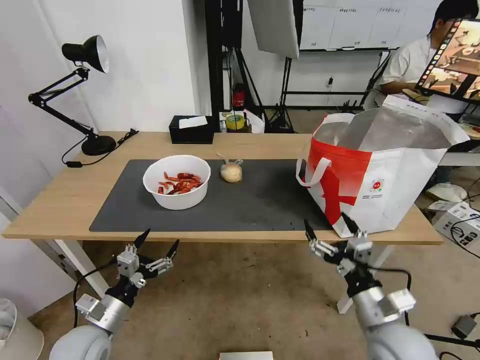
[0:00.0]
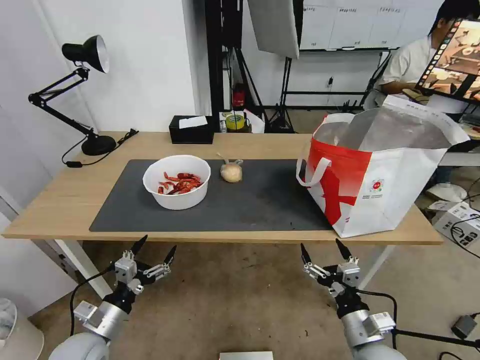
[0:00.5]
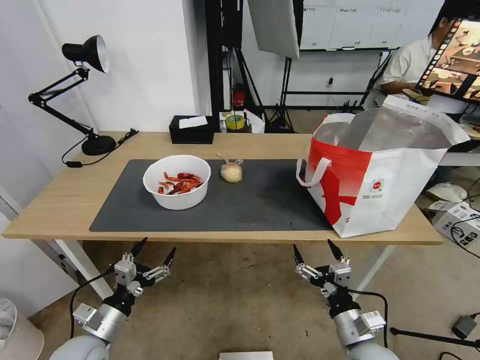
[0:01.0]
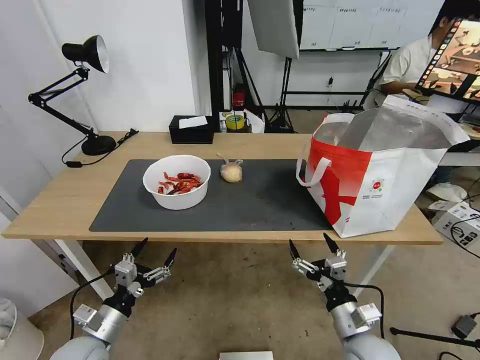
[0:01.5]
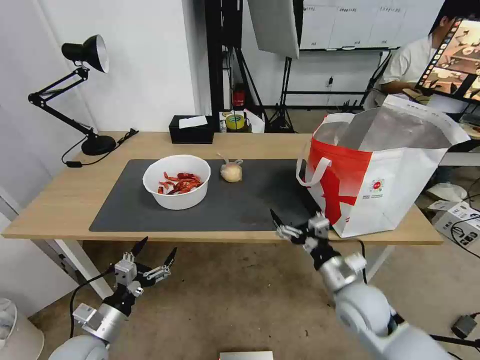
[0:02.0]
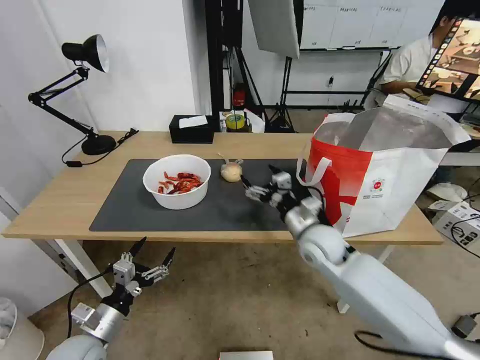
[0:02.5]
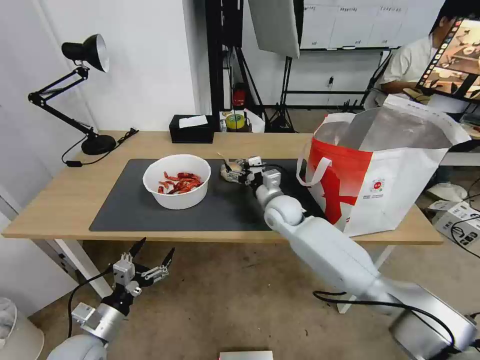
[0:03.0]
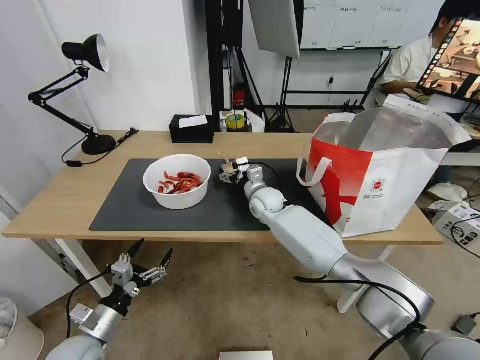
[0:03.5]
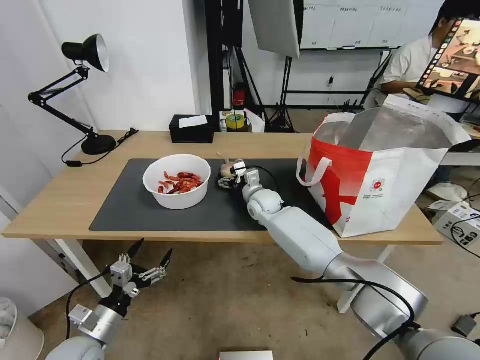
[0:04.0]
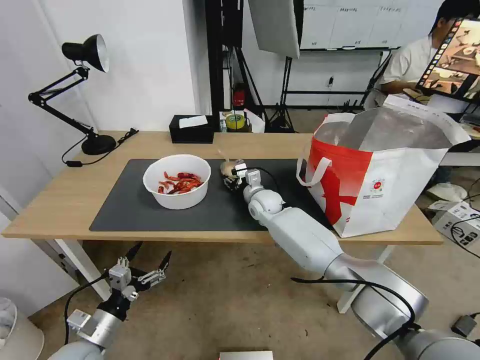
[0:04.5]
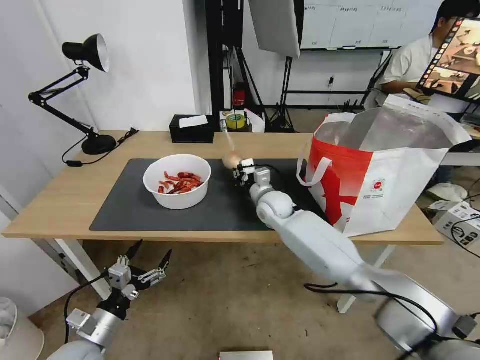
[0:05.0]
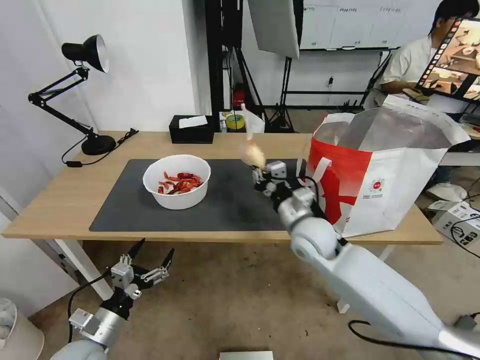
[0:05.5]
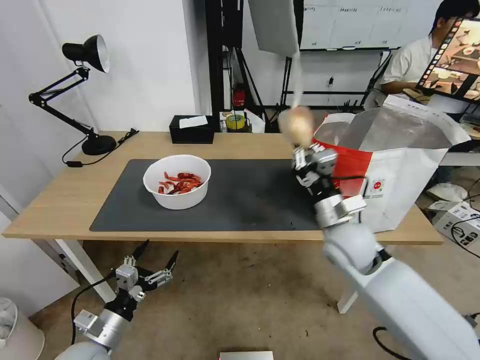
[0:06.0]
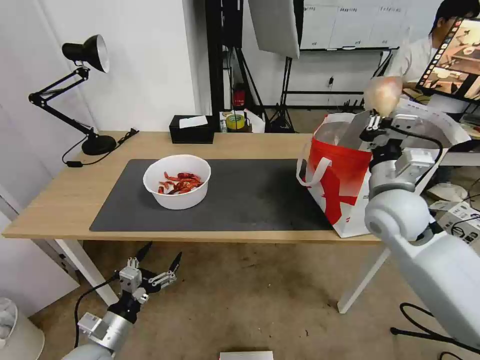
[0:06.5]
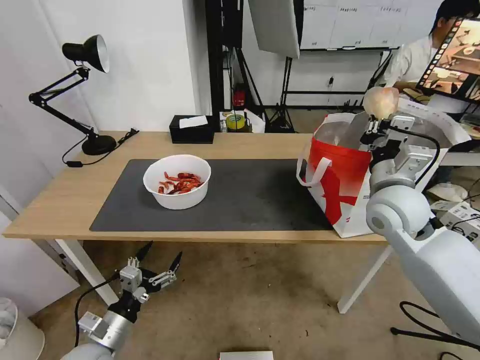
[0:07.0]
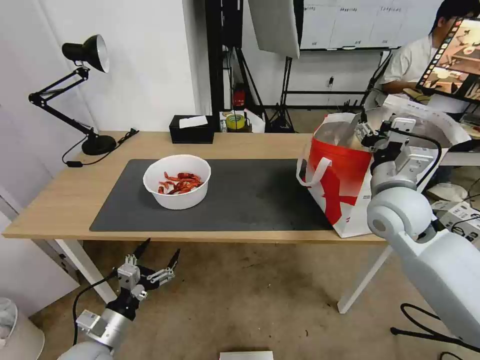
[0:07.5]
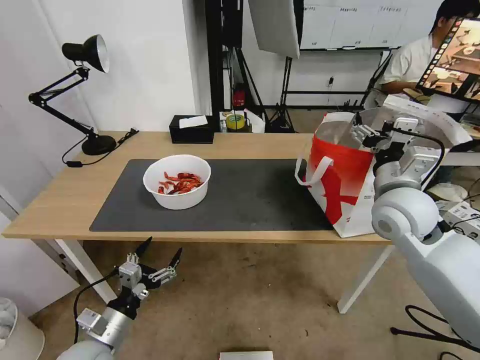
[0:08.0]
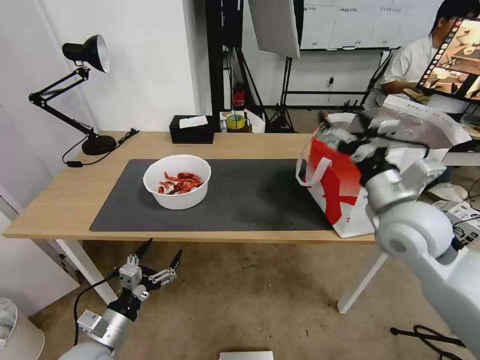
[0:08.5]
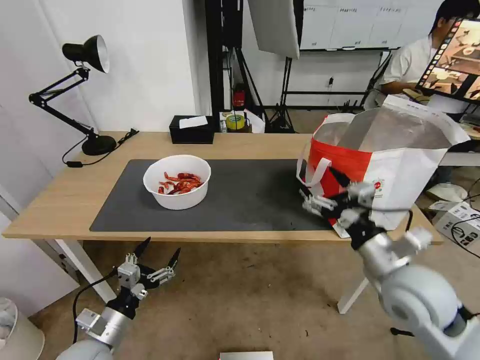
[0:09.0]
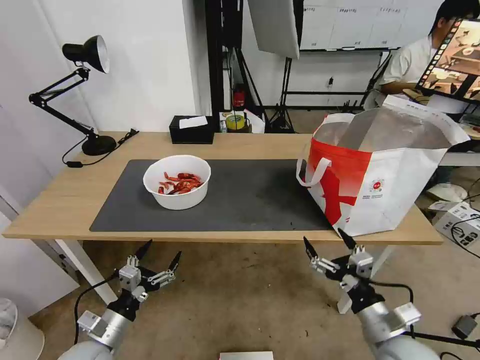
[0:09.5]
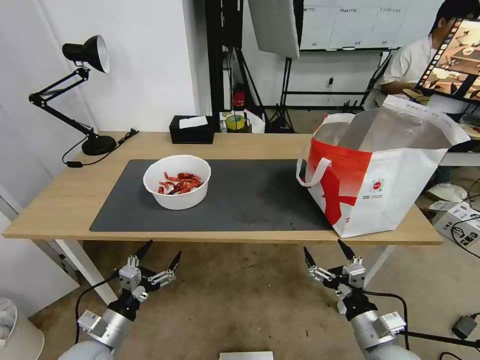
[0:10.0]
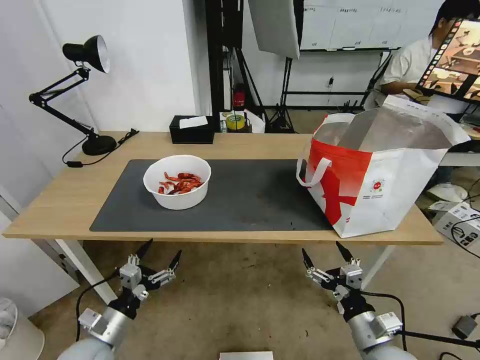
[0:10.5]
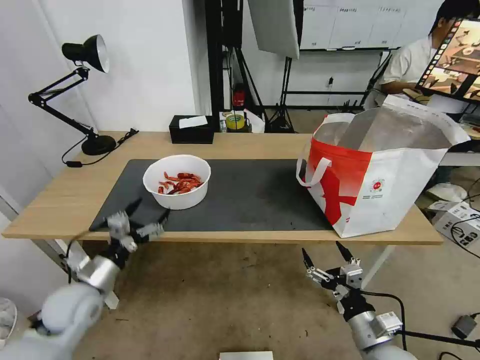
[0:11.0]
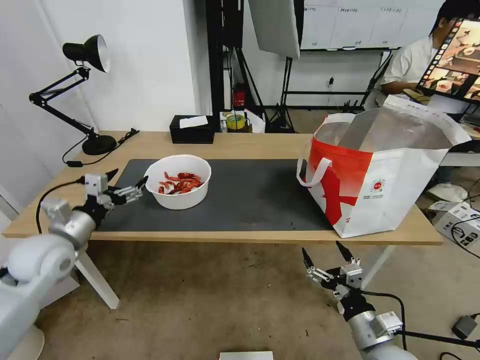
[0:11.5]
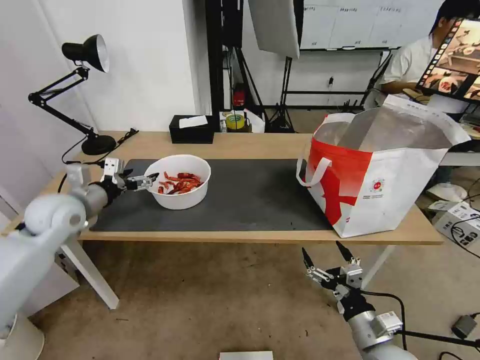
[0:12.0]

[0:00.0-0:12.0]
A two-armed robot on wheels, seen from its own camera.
Task of the whole recording: Pick up the trash from the table and place it into the takeout bag.
0:00.0 to 0:02.0: The right gripper moves forward, about 5 cm.
0:02.0 to 0:04.0: The right gripper goes about 35 cm forward and to the left.
0:04.0 to 0:06.0: The right gripper goes about 25 cm backward, to the right and upward, and closes.
0:06.0 to 0:08.0: The right gripper is displaced upward and to the right by some 10 cm, and opens.
0:08.0 to 0:10.0: The right gripper travels downward and backward by approximately 30 cm.
0:10.0 to 0:12.0: The left gripper moves forward and upward, roughly 30 cm.

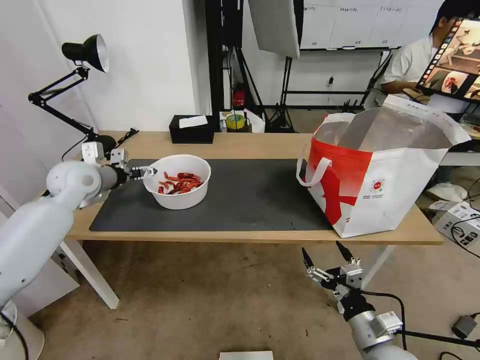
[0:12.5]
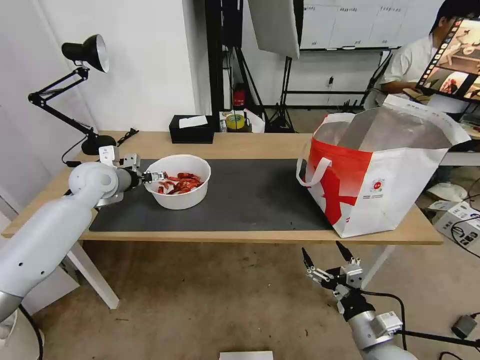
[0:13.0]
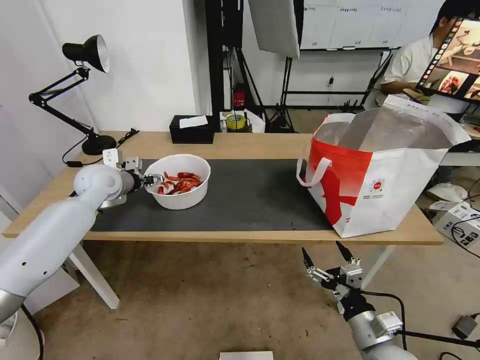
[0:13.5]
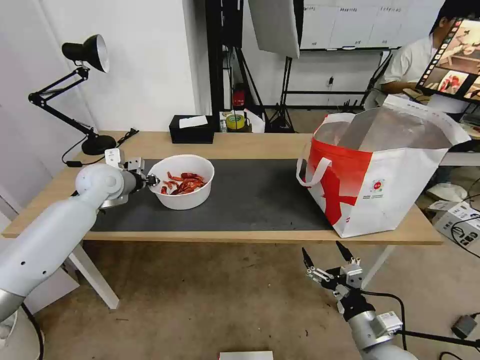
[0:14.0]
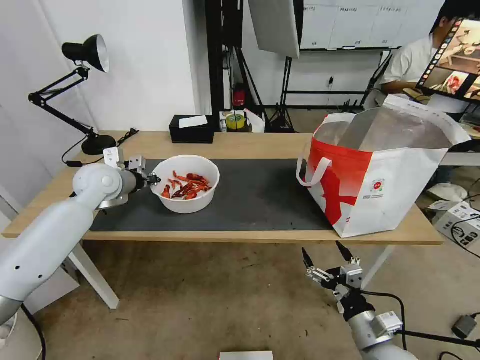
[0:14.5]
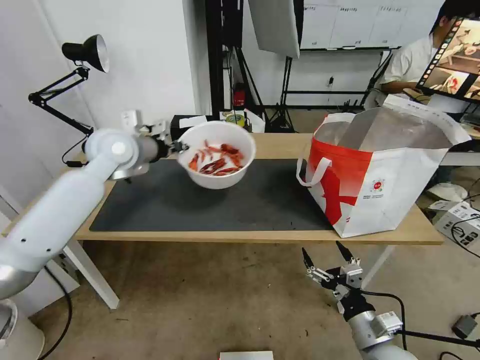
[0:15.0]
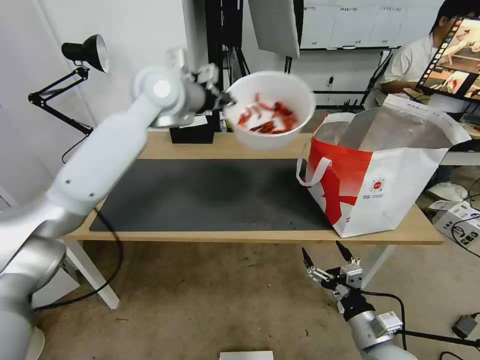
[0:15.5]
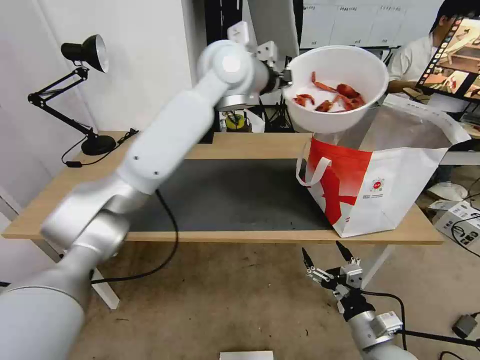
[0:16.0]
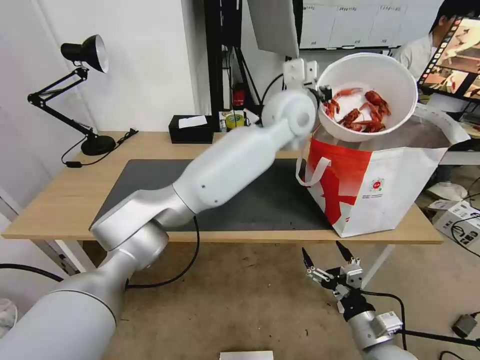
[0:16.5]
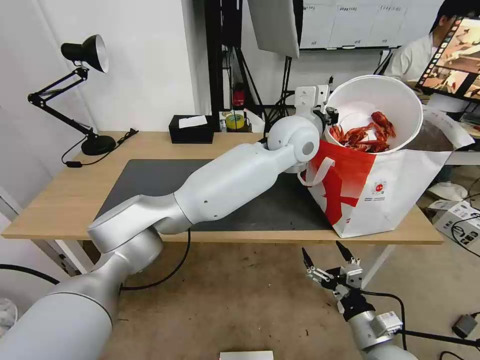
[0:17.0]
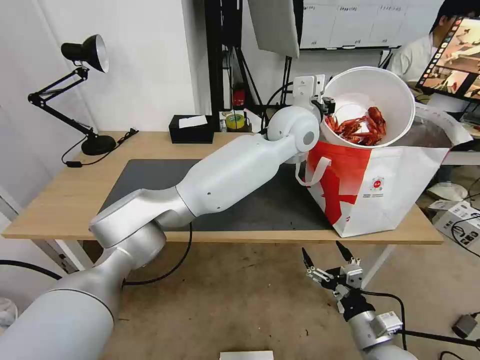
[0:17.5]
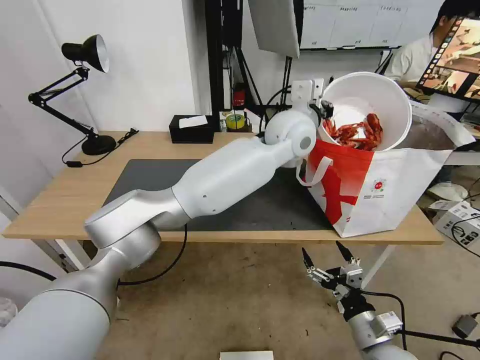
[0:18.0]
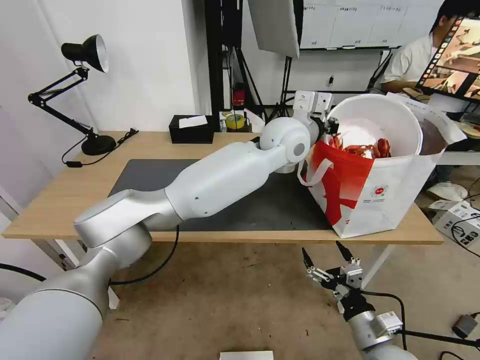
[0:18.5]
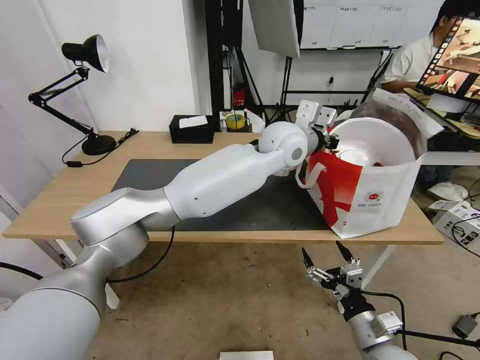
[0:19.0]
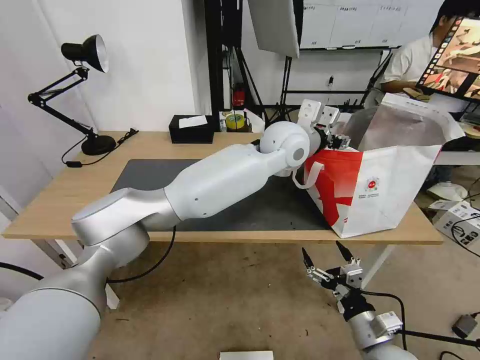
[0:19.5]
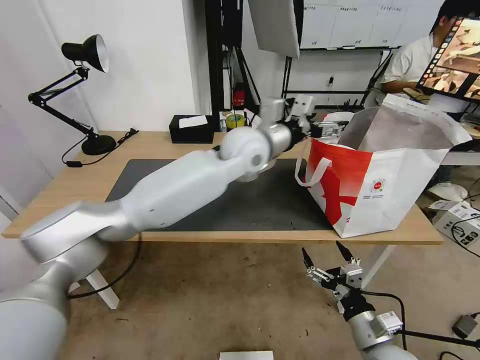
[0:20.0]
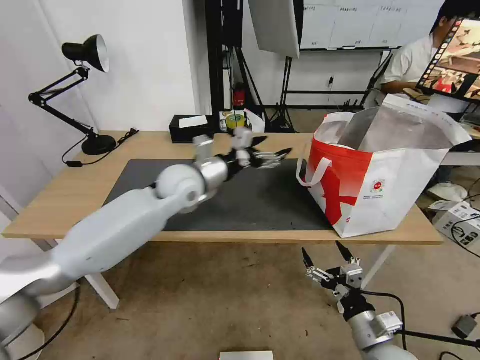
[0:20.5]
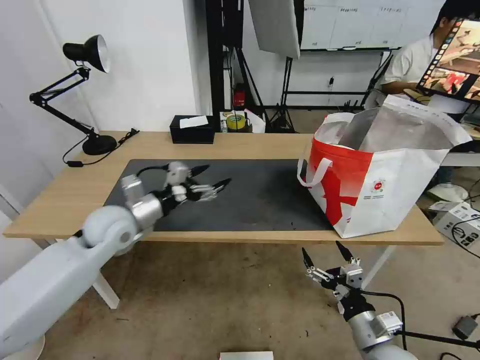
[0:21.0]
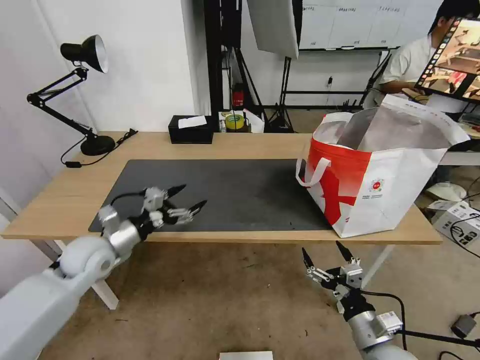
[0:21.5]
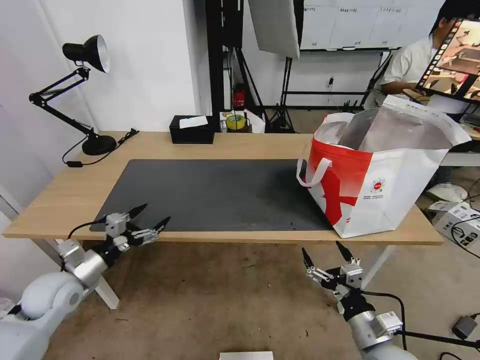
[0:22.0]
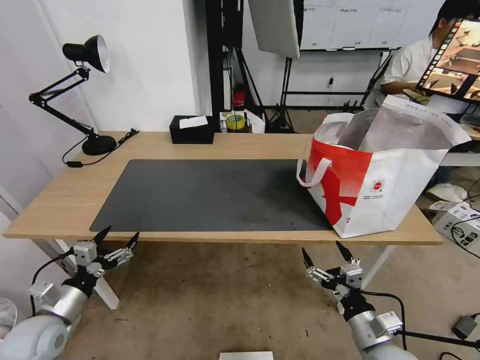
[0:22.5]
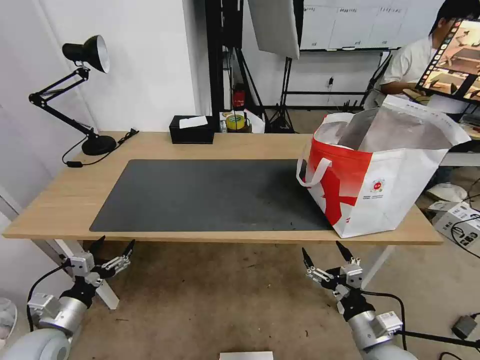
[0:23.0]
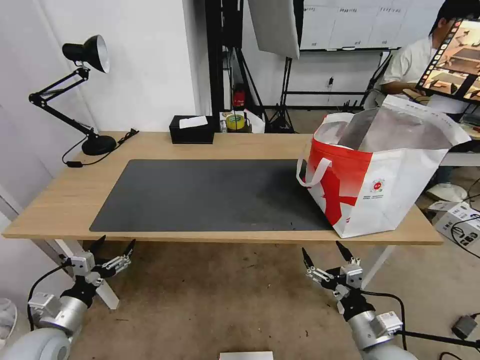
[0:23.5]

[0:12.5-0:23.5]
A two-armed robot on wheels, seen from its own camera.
Task of the whole recording: Pick up the trash from the table and place it into the takeout bag.
0:12.5 to 0:14.5: The left gripper closes its fingers.
0:14.5 to 0:16.0: The left gripper heads to the right and upward, covering roughly 35 cm.
0:16.0 to 0:18.0: The left gripper goes roughly 15 cm to the right and downward.
0:18.0 to 0:20.0: The left gripper moves to the left, about 10 cm, and opens.
0:20.0 to 0:21.5: The left gripper moves to the left and downward, approximately 40 cm.
0:21.5 to 0:23.5: The left gripper heads backward, downward and to the left, covering approximately 20 cm.

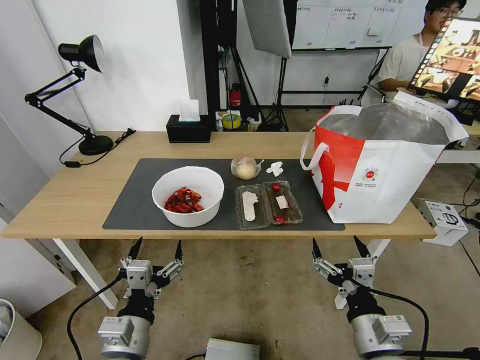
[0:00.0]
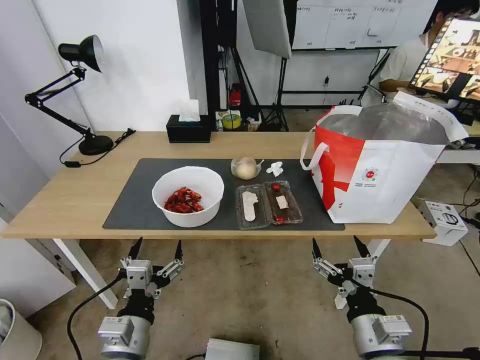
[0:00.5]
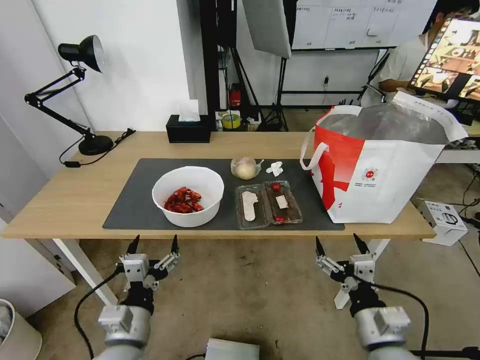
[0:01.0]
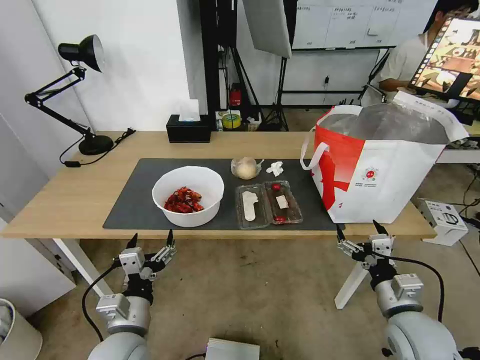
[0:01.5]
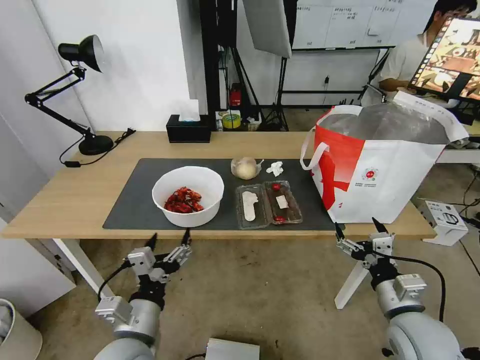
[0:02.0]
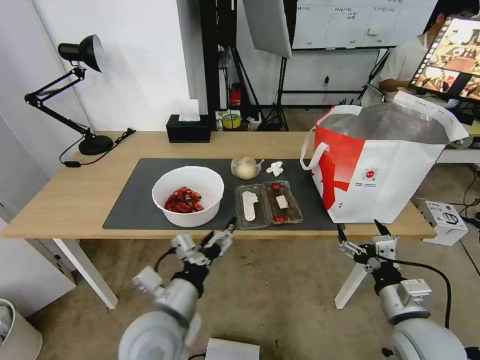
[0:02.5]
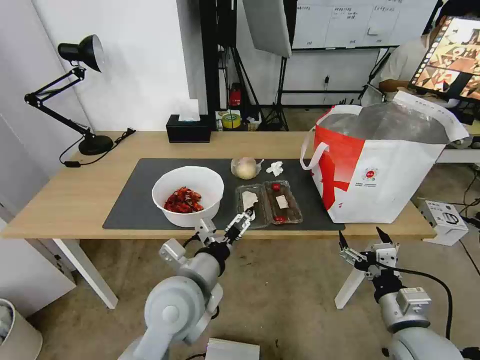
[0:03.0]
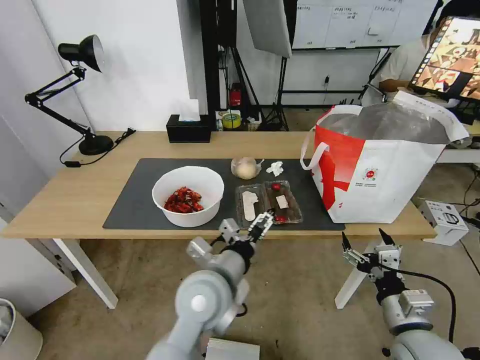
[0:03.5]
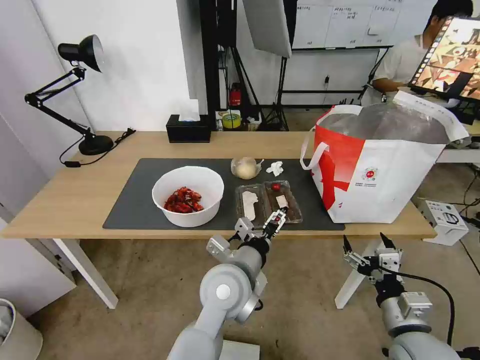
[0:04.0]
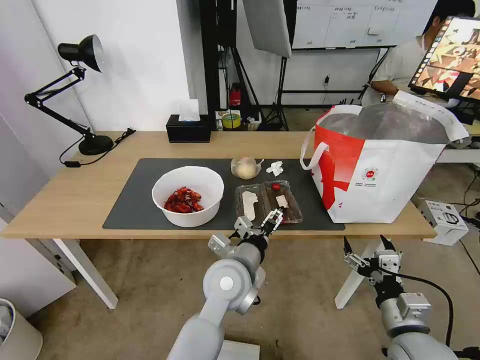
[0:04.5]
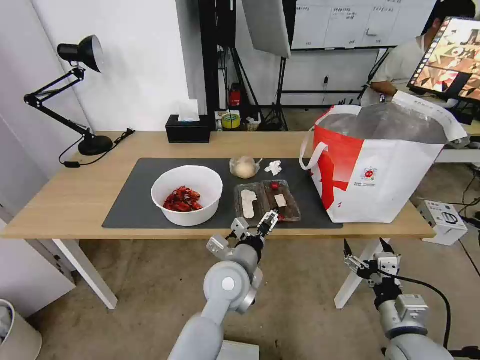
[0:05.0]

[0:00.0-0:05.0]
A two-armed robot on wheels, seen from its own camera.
Task of the whole recording: Pick up the trash from the table and place it into the takeout bag.
0:02.5 to 0:05.0: The left gripper shifts about 15 cm to the right and forward.
